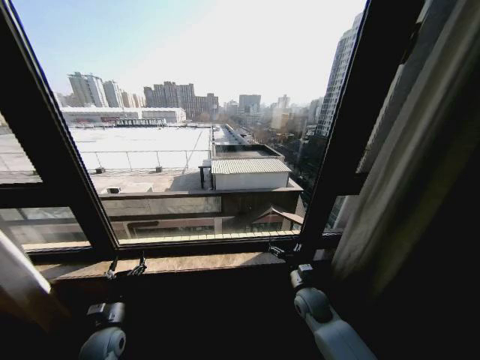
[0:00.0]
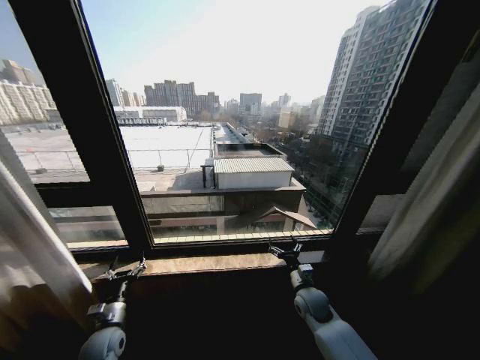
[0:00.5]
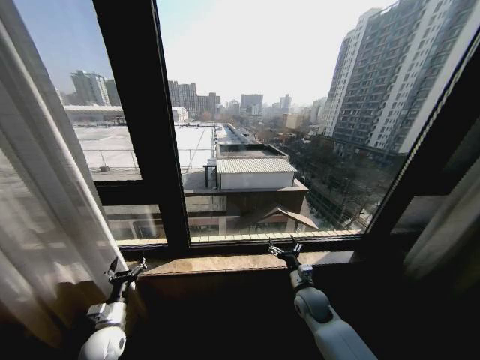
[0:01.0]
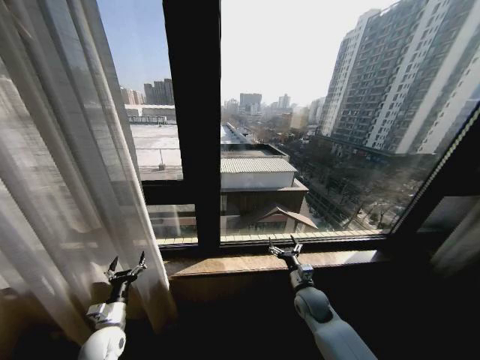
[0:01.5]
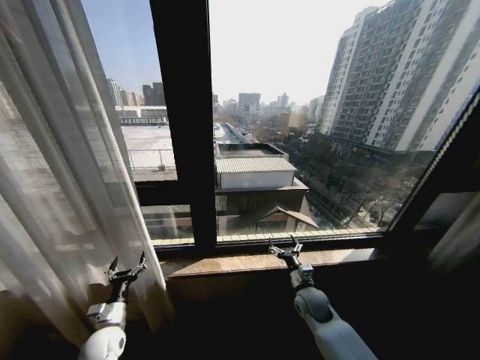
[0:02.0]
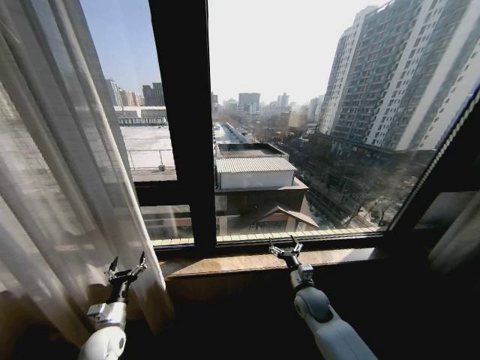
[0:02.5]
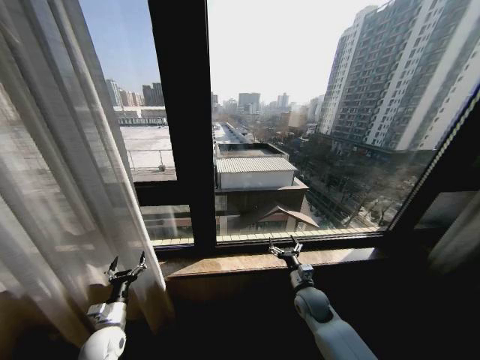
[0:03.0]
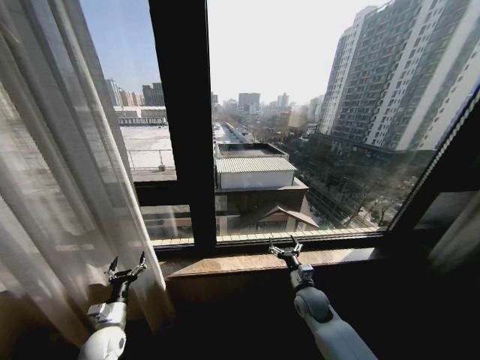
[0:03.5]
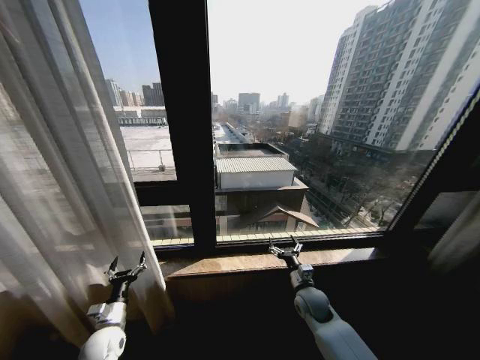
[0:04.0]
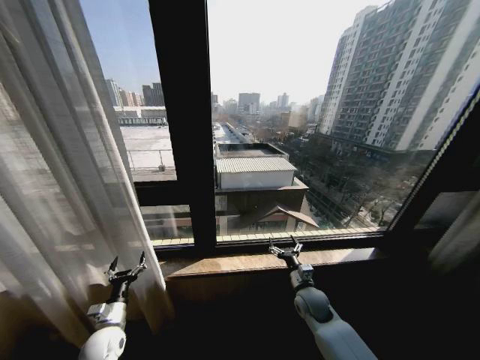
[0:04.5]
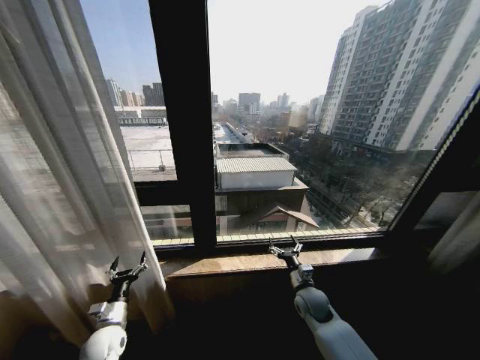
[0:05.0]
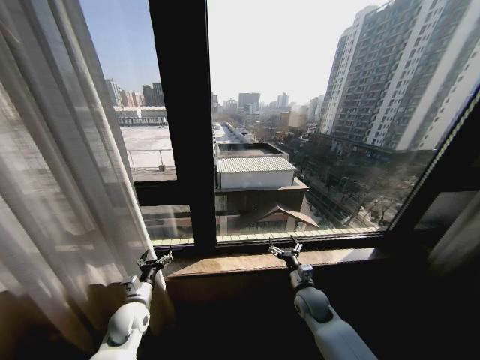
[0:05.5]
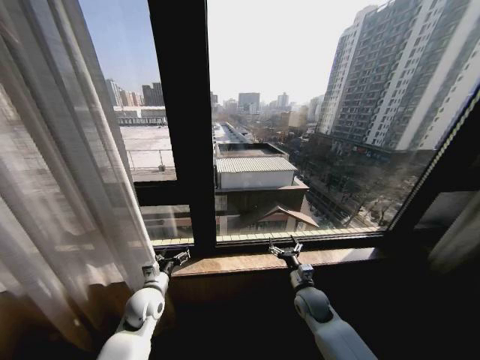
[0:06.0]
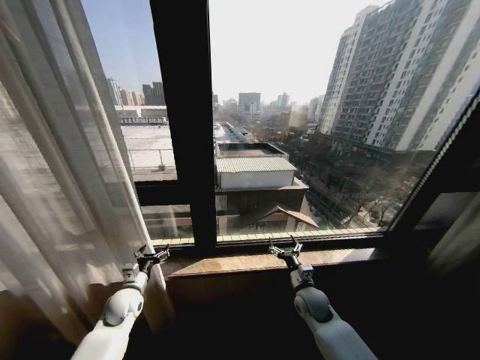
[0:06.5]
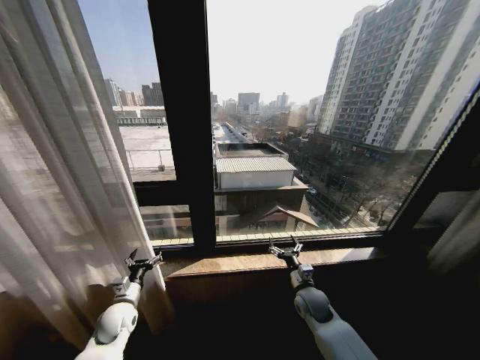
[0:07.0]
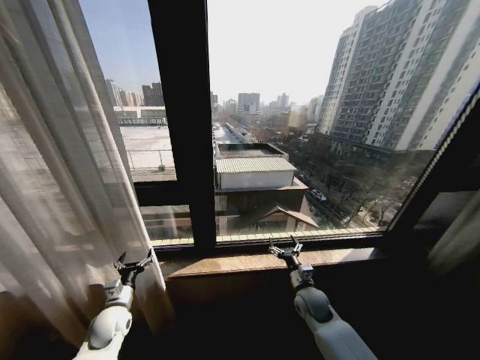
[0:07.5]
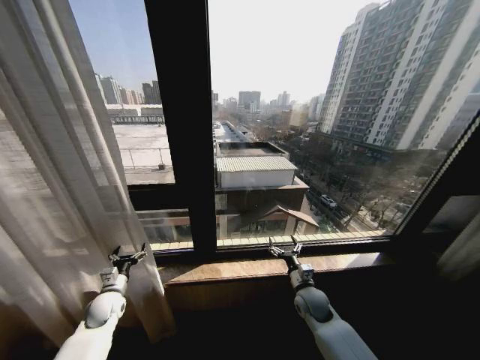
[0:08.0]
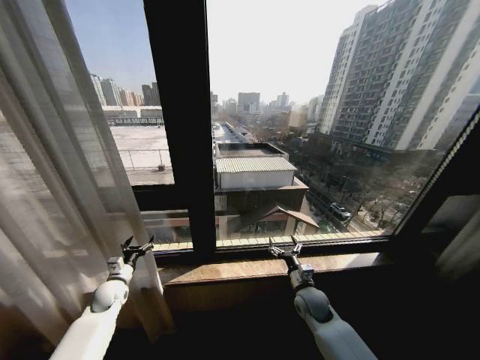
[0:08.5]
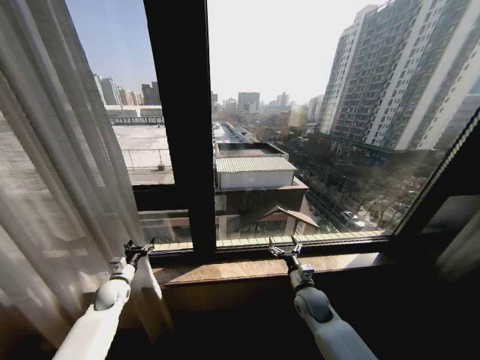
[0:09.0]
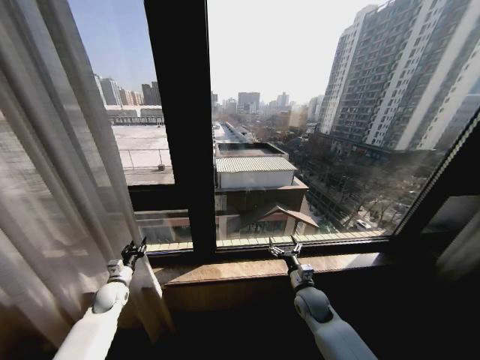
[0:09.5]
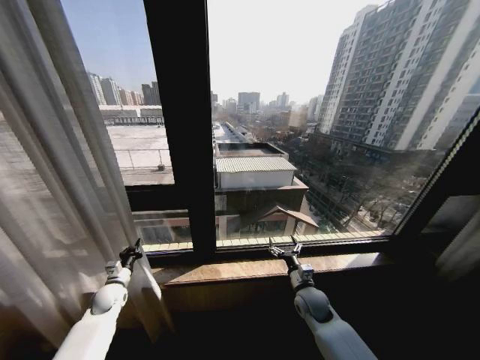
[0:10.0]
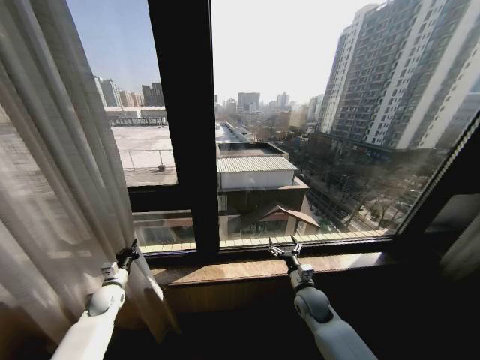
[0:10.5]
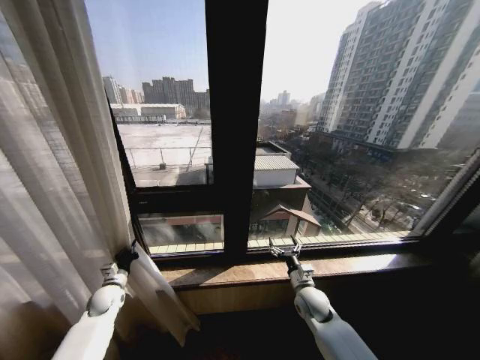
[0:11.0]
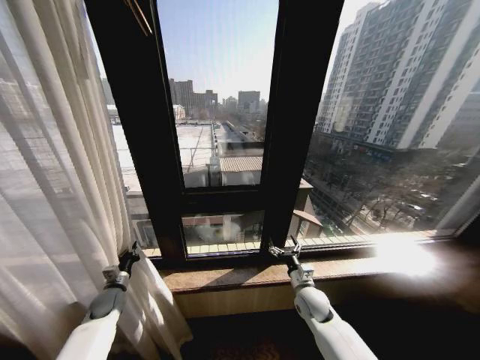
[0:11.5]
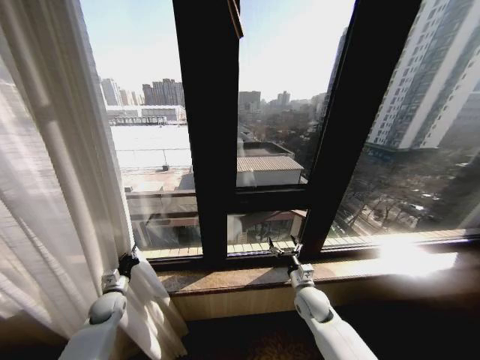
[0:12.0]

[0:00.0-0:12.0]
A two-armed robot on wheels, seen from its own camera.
Task of the whole recording: Open the curtains by pulling them apart, changing their state from closed to fully open.
0:02.0 to 0:04.0: The two grippers keep their place.
0:04.0 to 0:06.0: The left gripper heads to the right, upward and forward, covering some 15 cm.
0:06.0 to 0:08.0: The left gripper moves to the left, about 15 cm.
0:08.0 to 0:10.0: The left gripper closes its fingers.

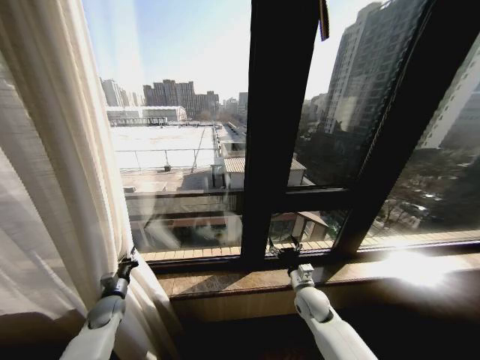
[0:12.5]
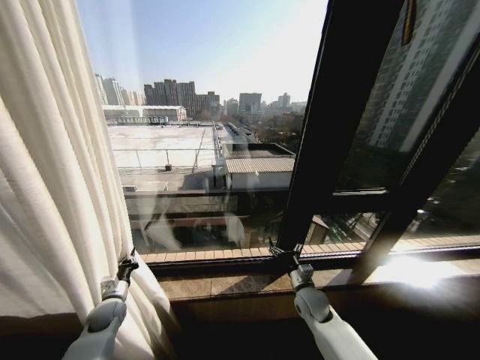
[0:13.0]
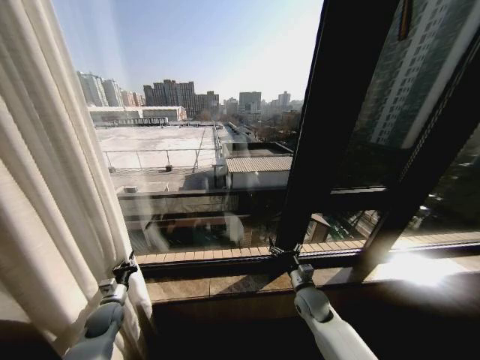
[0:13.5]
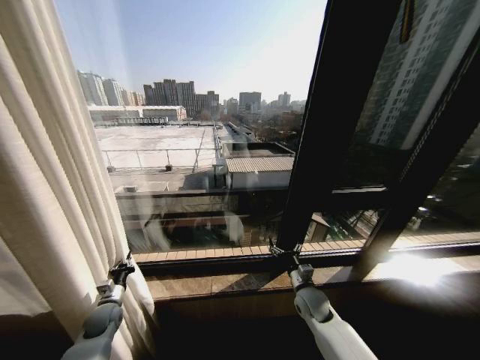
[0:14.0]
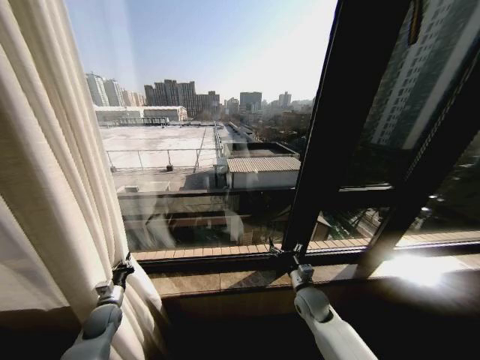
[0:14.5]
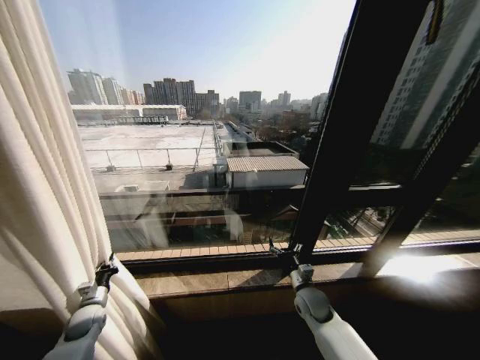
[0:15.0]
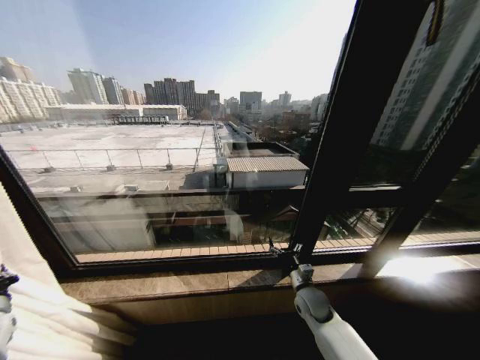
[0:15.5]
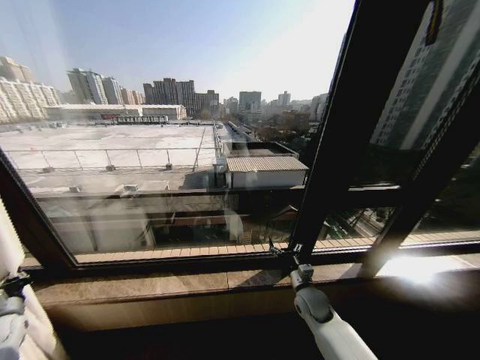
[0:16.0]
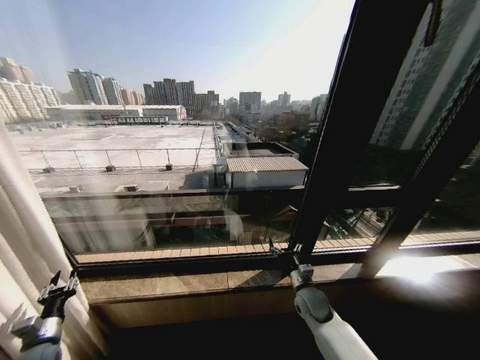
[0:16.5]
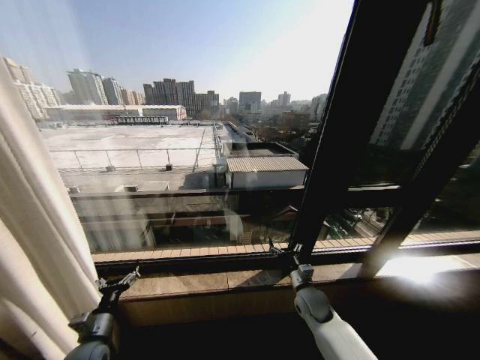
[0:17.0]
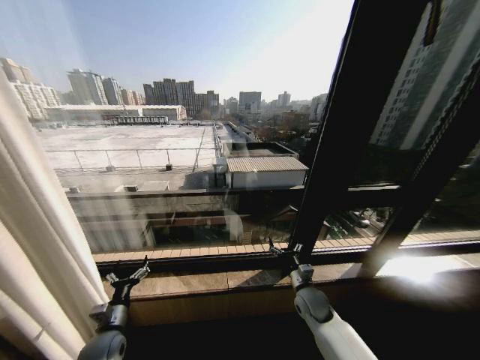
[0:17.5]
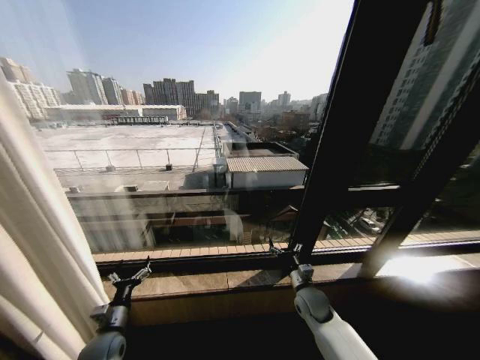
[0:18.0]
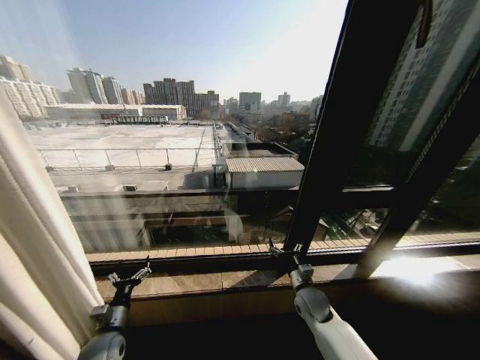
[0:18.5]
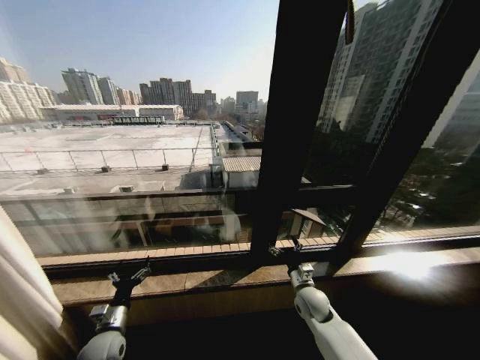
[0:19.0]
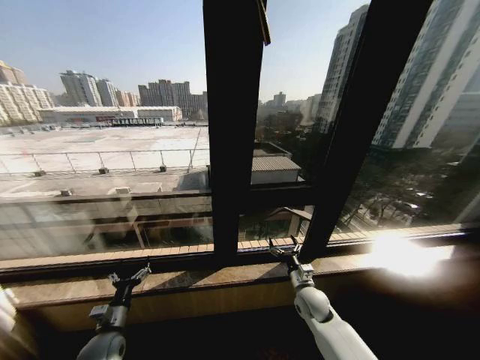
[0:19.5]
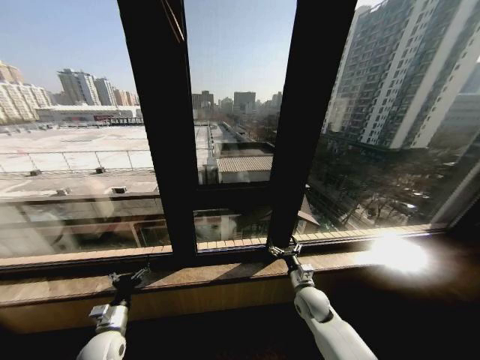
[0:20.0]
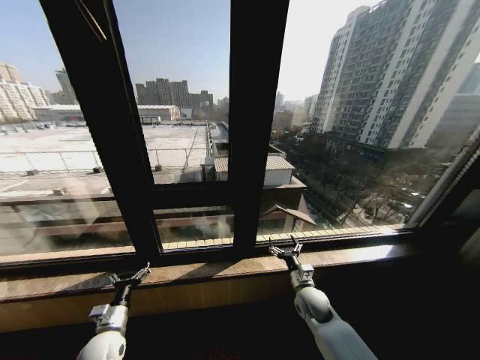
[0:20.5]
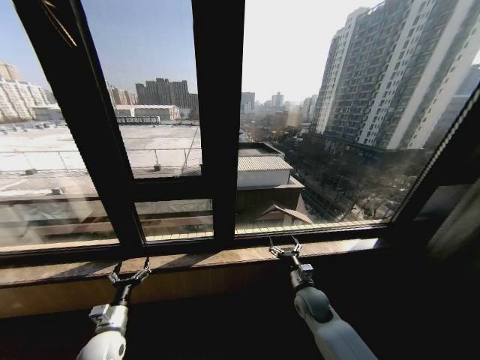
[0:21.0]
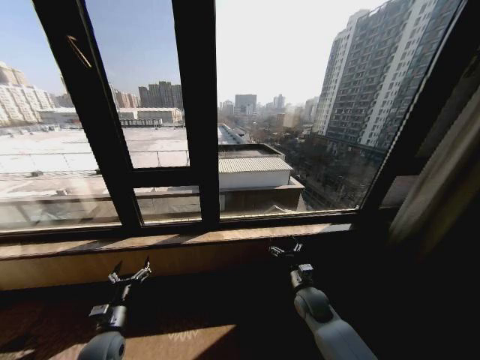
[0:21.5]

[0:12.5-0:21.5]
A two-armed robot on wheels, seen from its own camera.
Task of the whole recording: Open the curtains by pulling them apart, changing their state from closed to fully open.
0:14.5 to 0:17.0: The left gripper goes about 10 cm backward and upward, reaches some 25 cm to the left, then returns, and opens.
